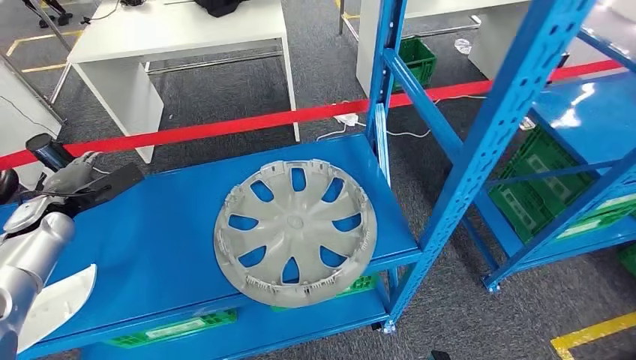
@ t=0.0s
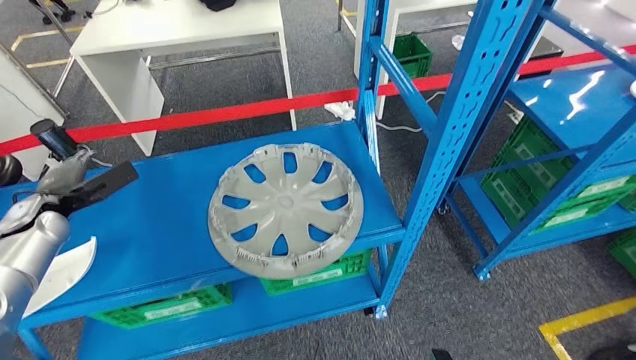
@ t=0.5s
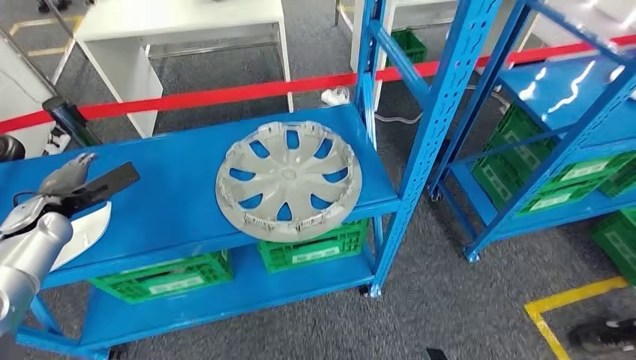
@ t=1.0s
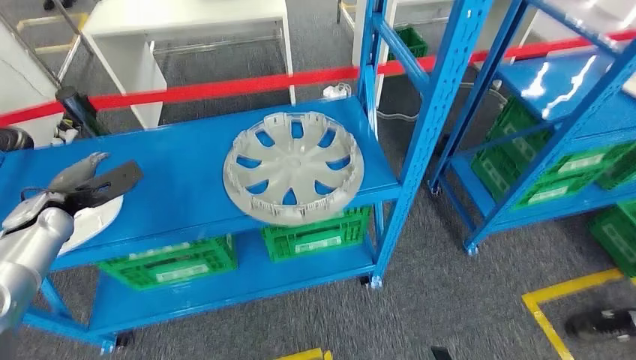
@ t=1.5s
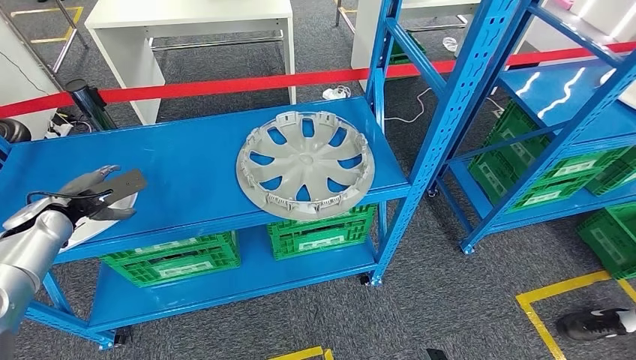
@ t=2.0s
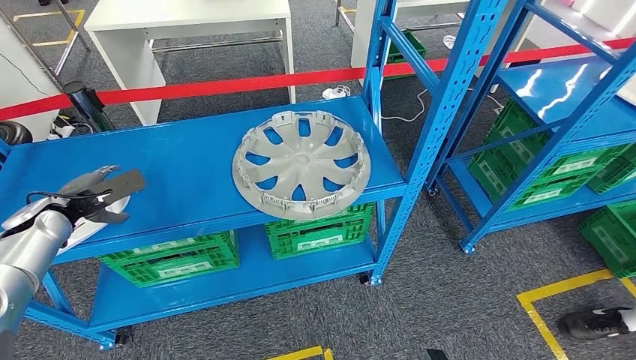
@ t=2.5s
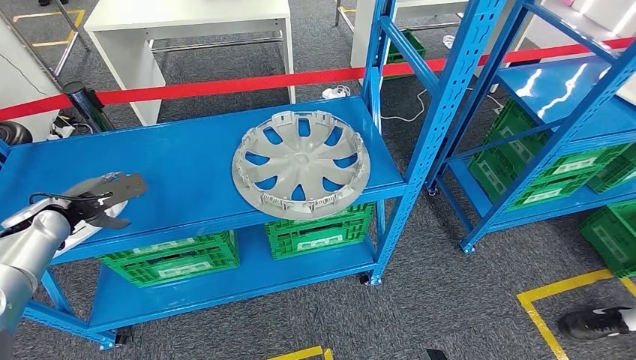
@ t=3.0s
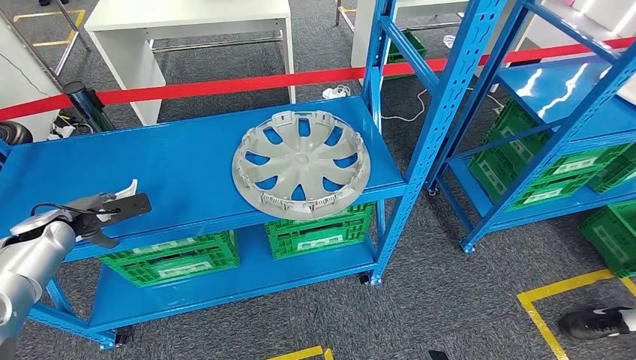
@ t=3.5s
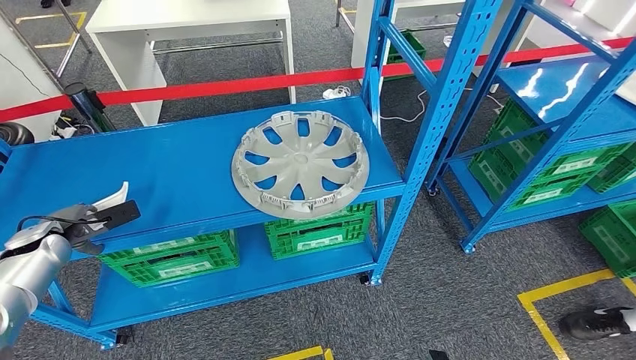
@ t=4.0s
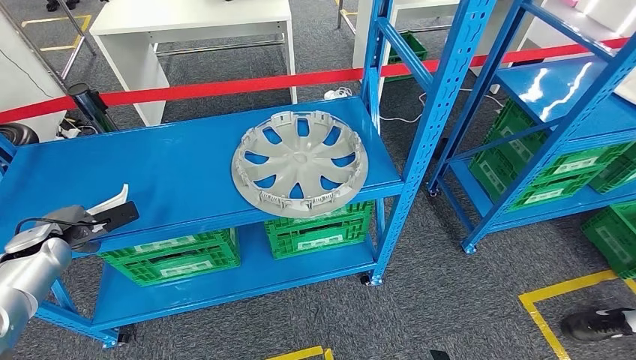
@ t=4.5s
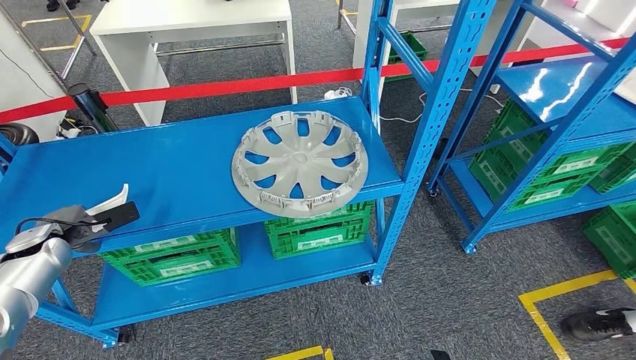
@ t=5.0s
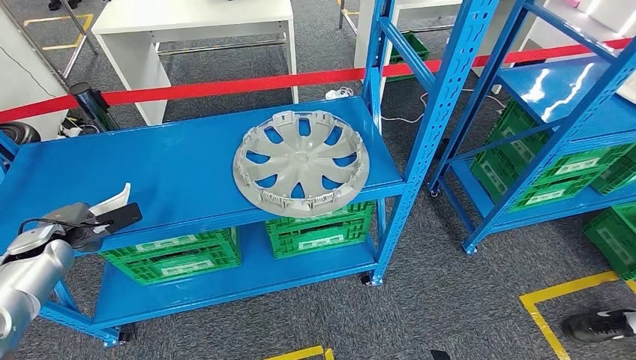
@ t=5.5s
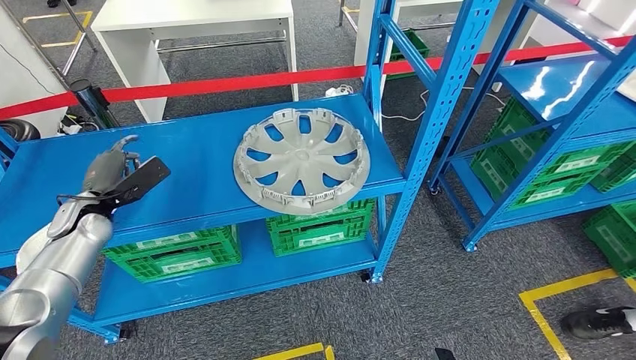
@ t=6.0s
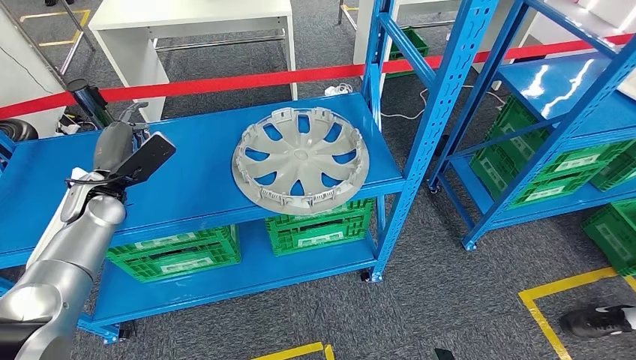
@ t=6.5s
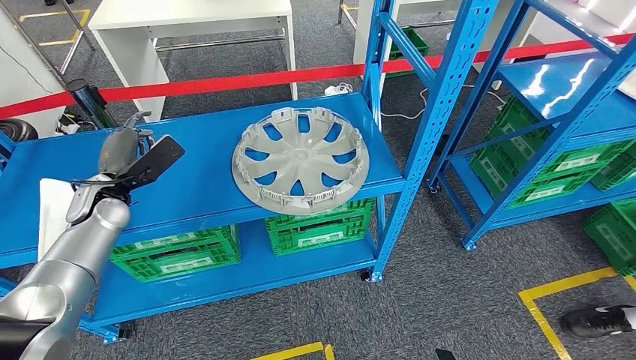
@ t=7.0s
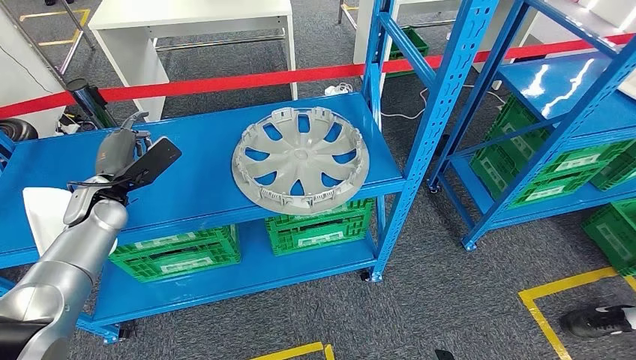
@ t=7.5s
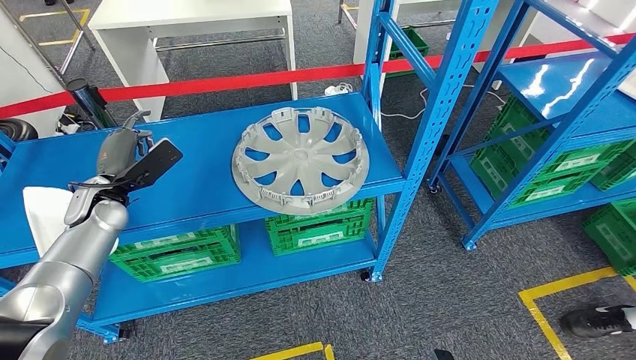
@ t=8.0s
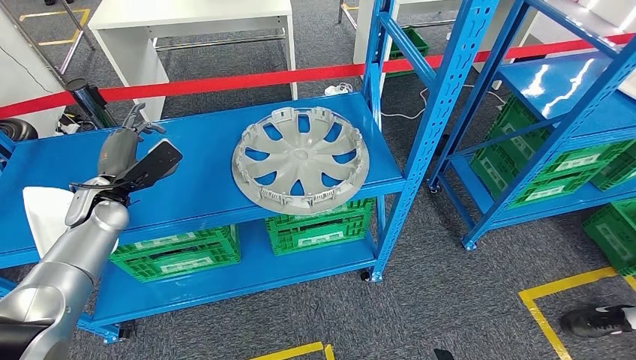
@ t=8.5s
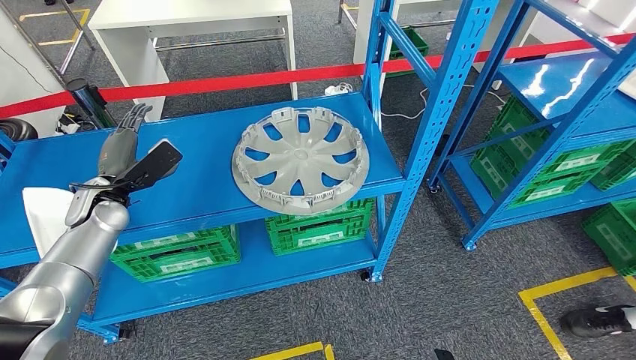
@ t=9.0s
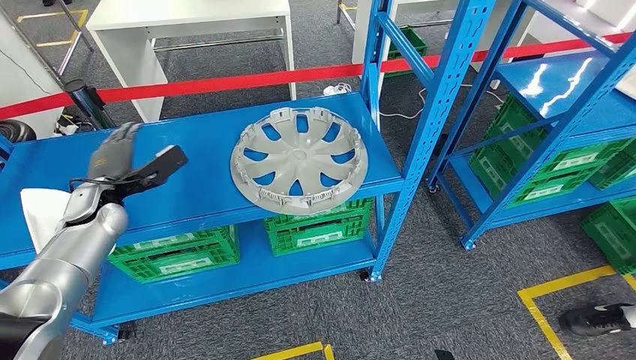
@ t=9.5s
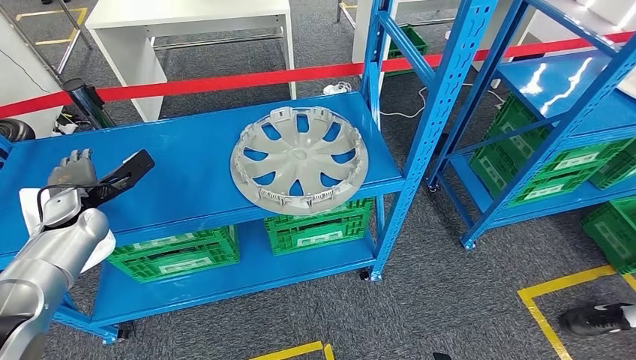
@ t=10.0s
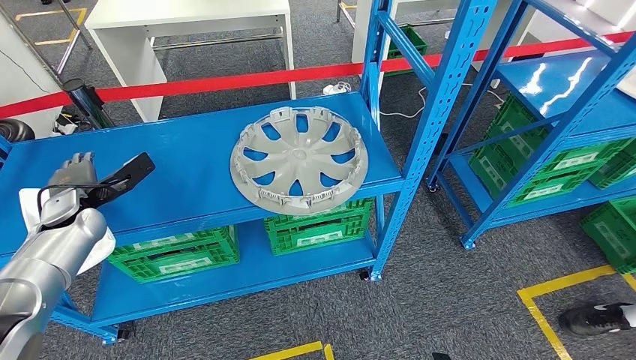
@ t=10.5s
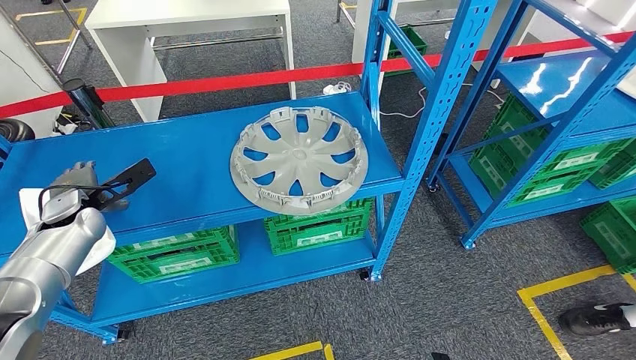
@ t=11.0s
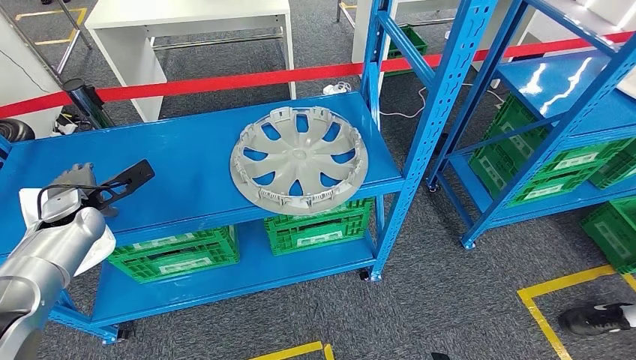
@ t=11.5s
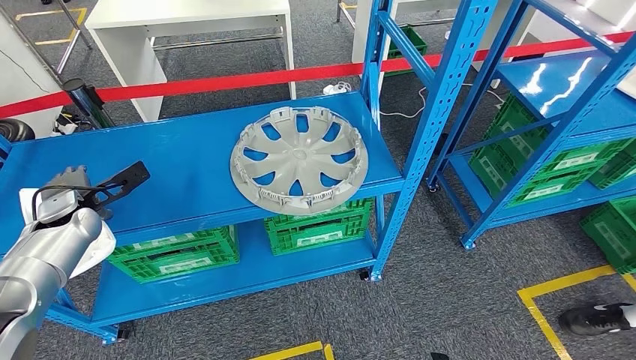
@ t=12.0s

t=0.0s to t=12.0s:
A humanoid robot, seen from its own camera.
t=2.0s to t=4.0s: The left hand changes place by roughly 5 cm.
t=4.0s to t=6.0s: The left hand heads to the right, covering about 10 cm.
t=6.0s to t=8.0s: The left hand ends up about 5 cm from where it was.
t=10.0s to t=12.0s: There are only small adjustments of the hands.

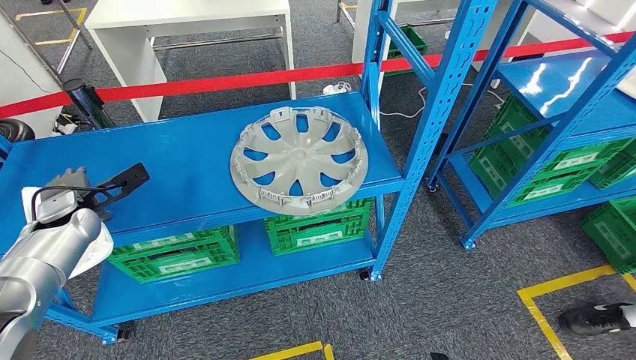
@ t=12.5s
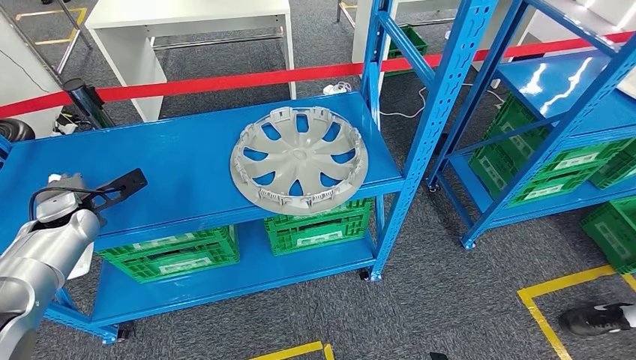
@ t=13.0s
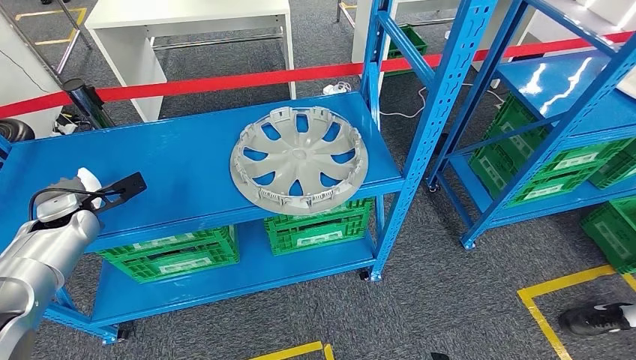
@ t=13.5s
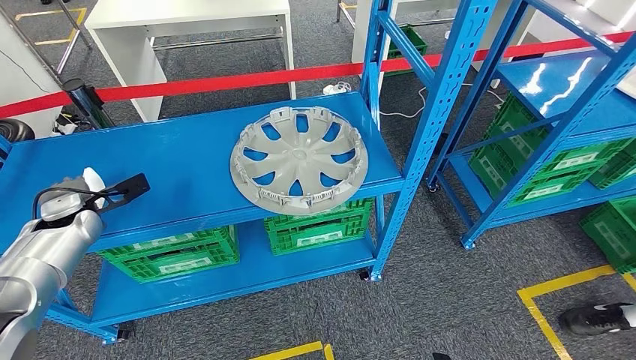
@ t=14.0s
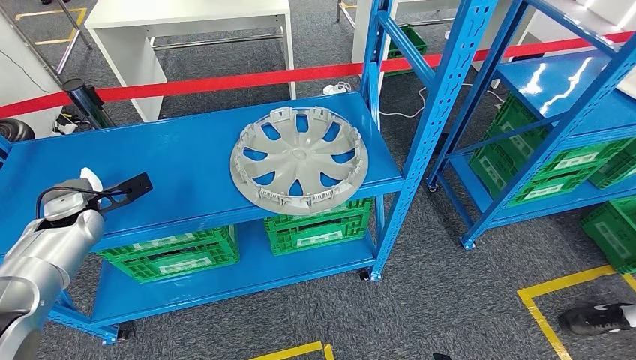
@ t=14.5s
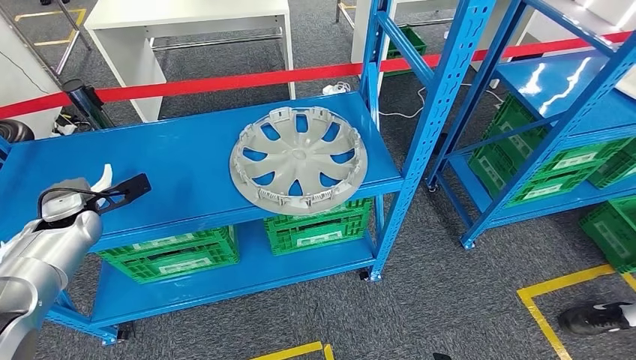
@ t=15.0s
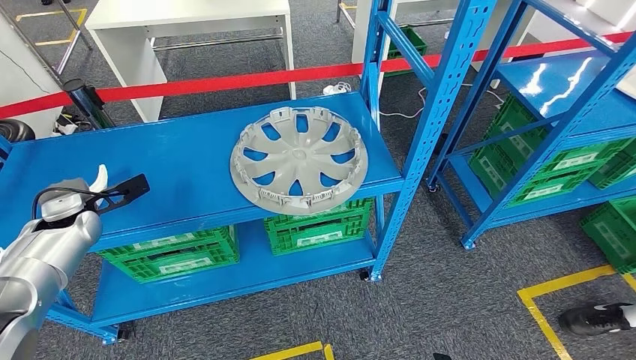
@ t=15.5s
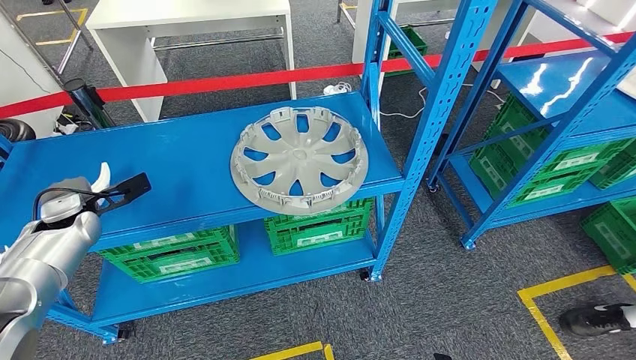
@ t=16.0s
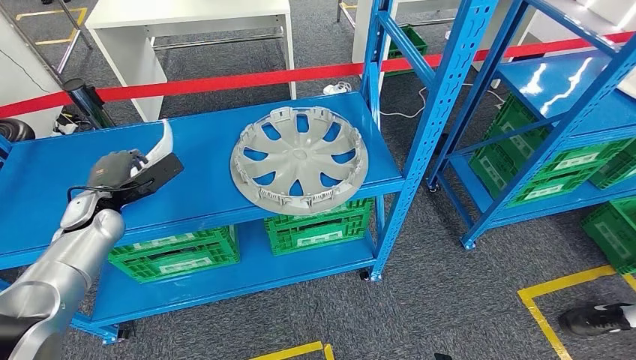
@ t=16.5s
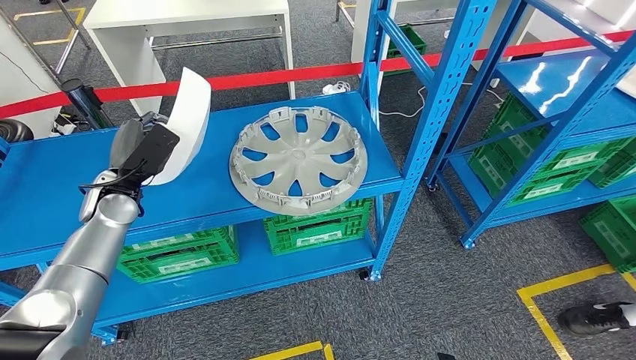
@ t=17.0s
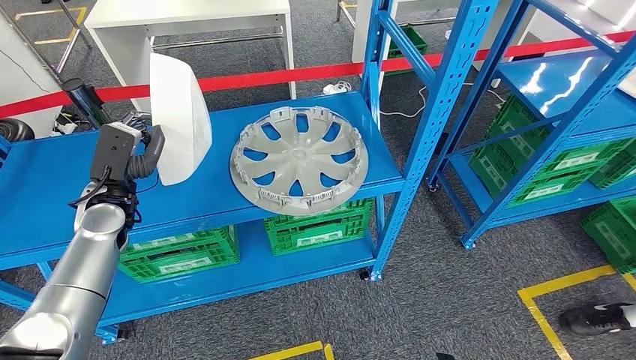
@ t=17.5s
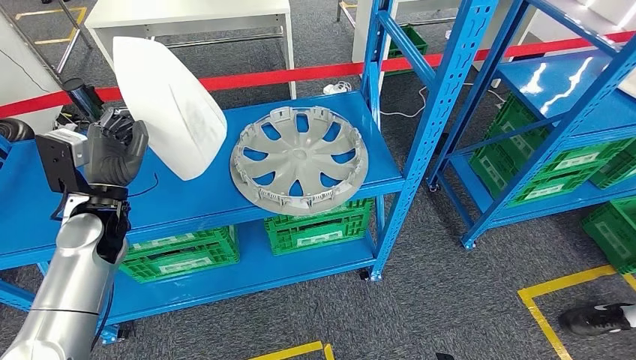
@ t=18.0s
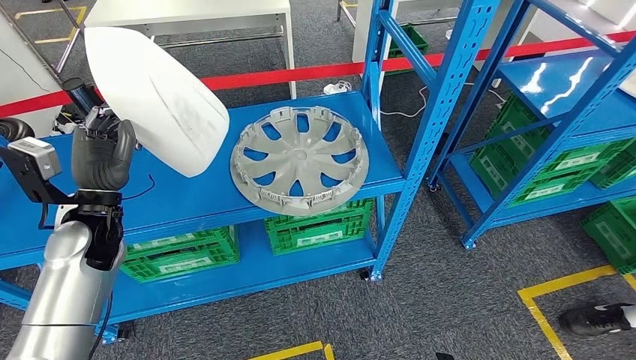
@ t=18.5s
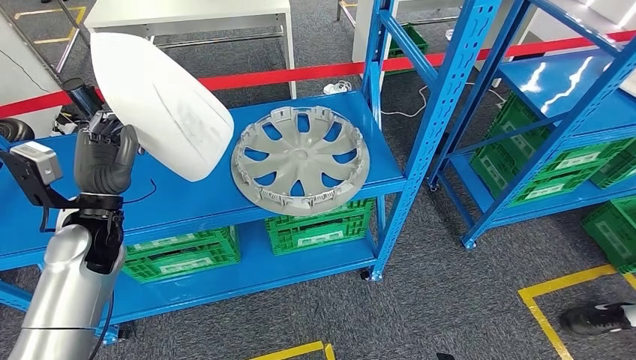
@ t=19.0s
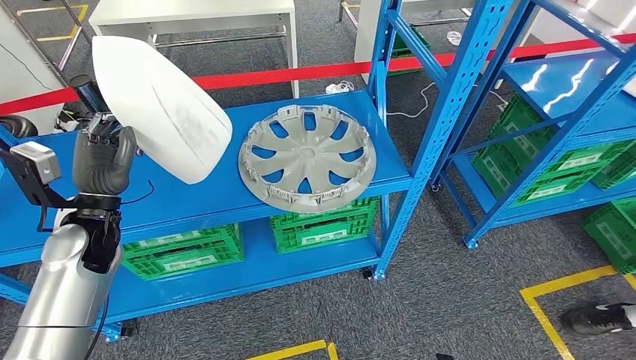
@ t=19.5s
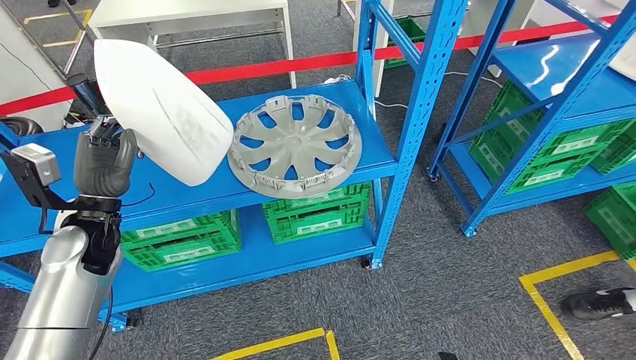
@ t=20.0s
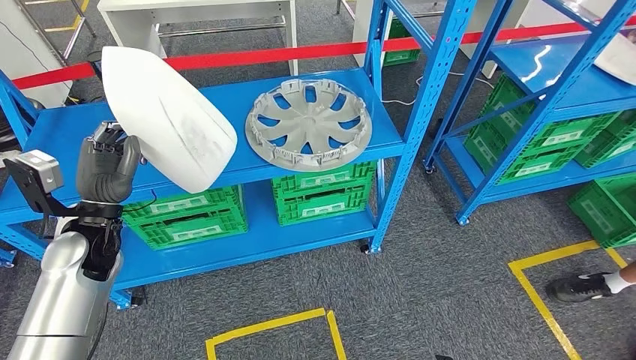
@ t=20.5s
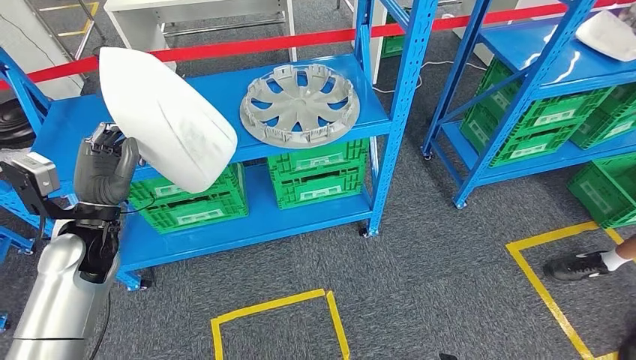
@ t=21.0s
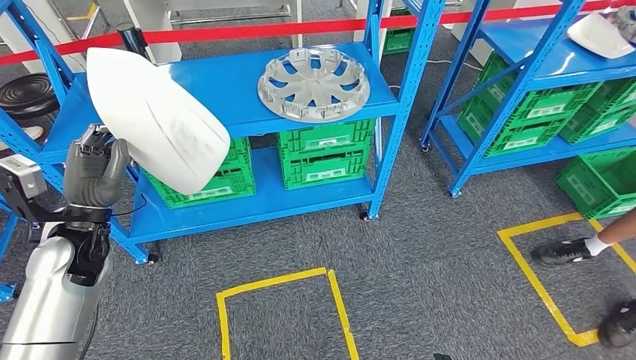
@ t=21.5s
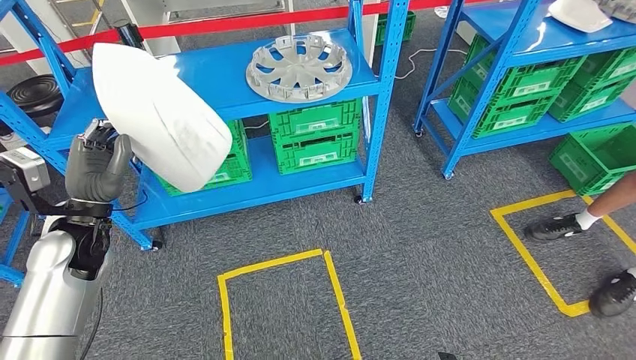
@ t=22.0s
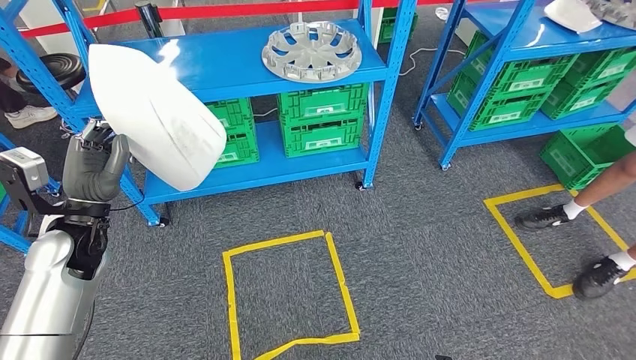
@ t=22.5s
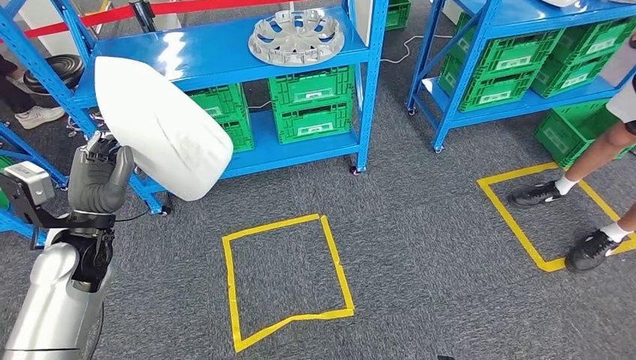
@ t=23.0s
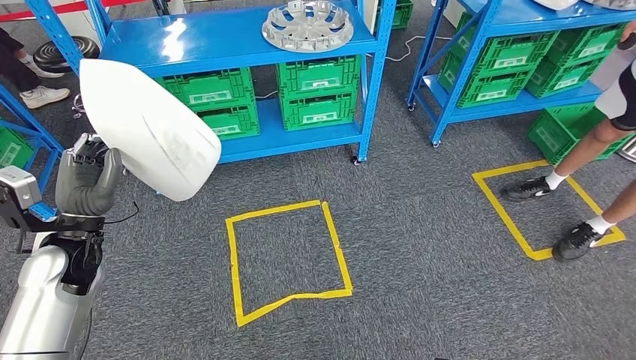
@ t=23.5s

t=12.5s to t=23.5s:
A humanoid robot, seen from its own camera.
Step, t=12.5s to t=19.0s: Pick up the small component from the shelf.
t=12.5s to t=14.5s: There are only small adjustments of the hands.
t=14.5s to t=16.0s: Both hands stay about where they are.
t=16.0s to t=18.0s: The left hand shifts some 10 cm to the right.
